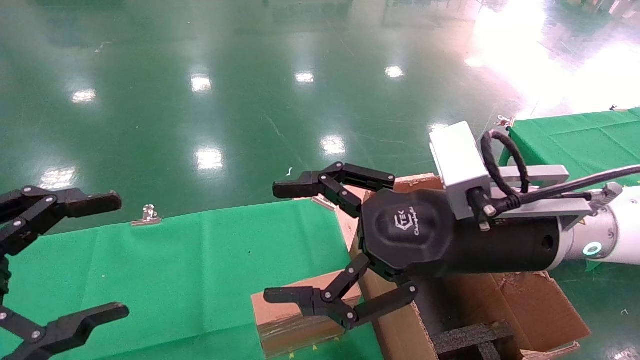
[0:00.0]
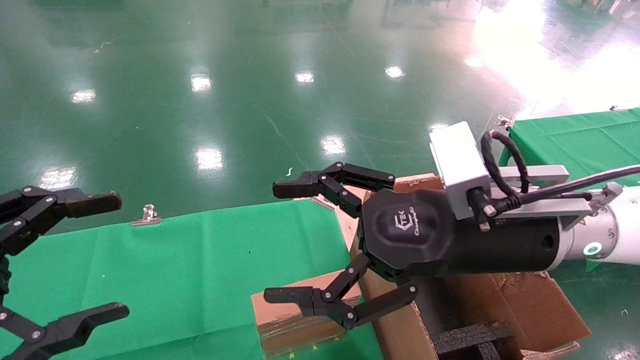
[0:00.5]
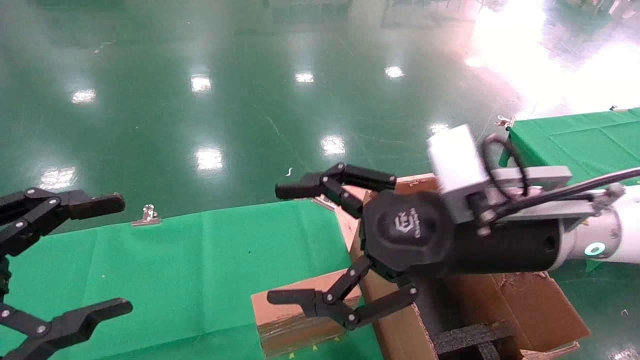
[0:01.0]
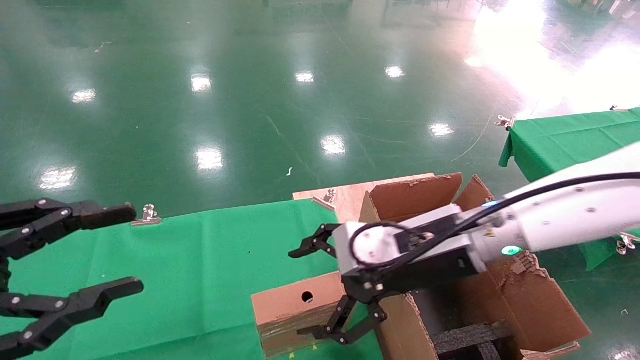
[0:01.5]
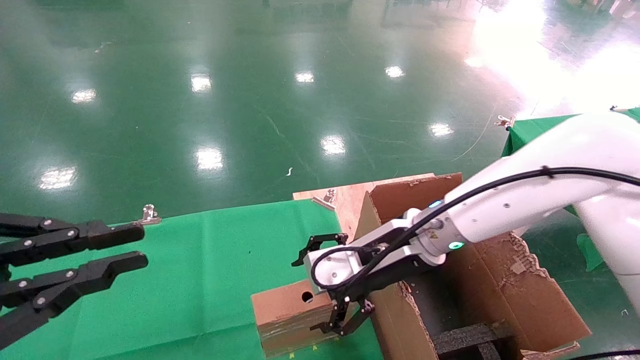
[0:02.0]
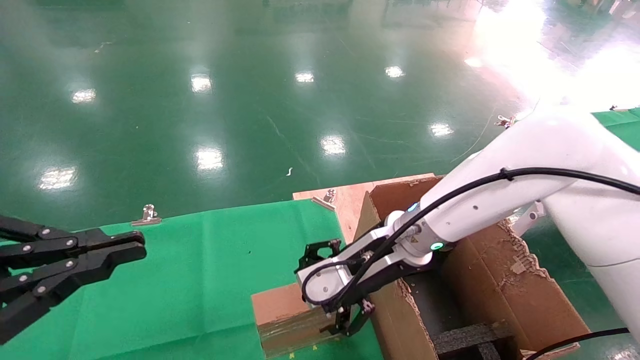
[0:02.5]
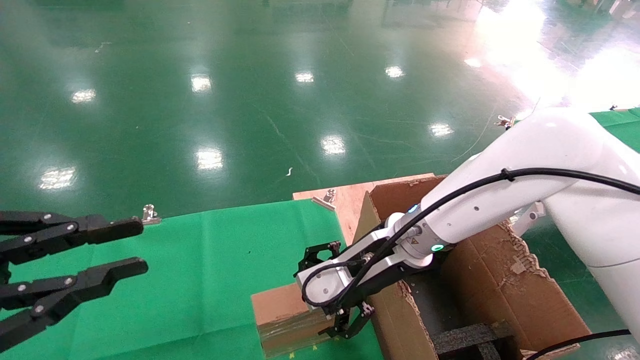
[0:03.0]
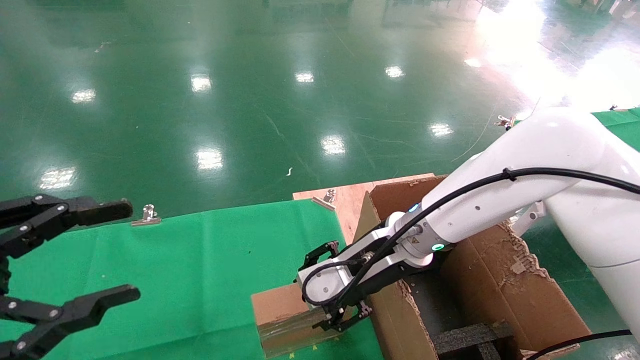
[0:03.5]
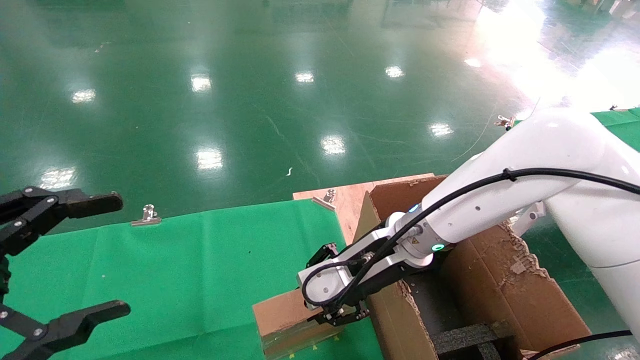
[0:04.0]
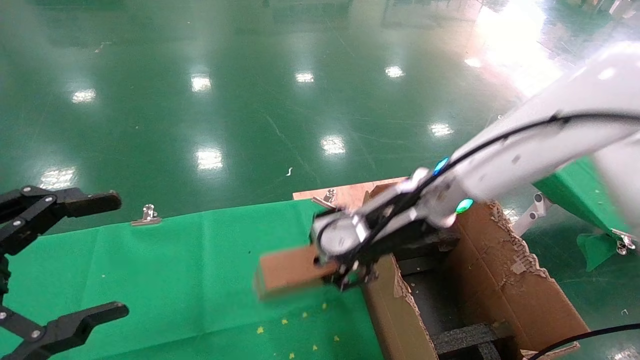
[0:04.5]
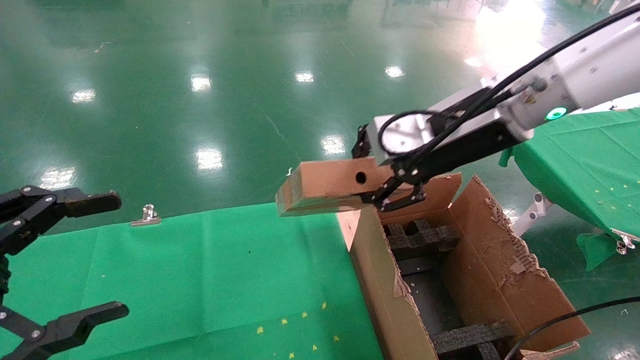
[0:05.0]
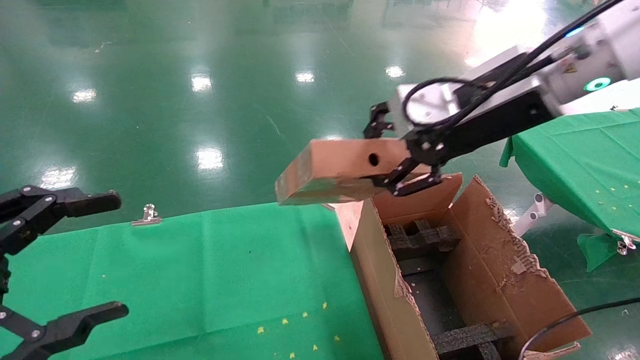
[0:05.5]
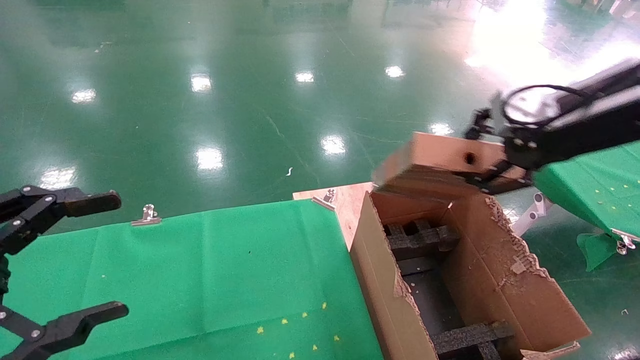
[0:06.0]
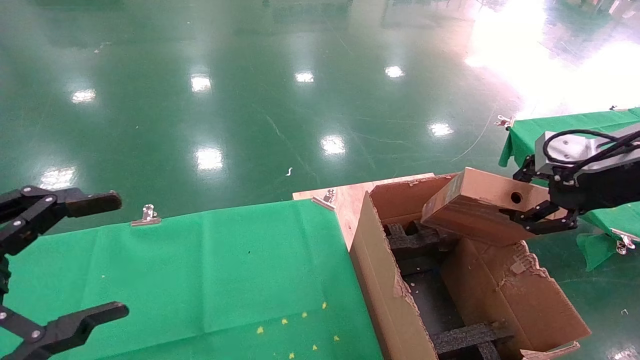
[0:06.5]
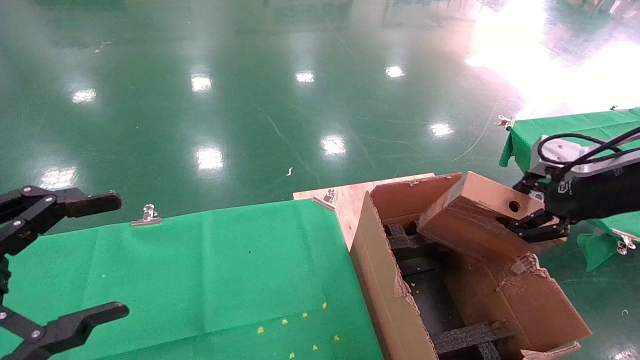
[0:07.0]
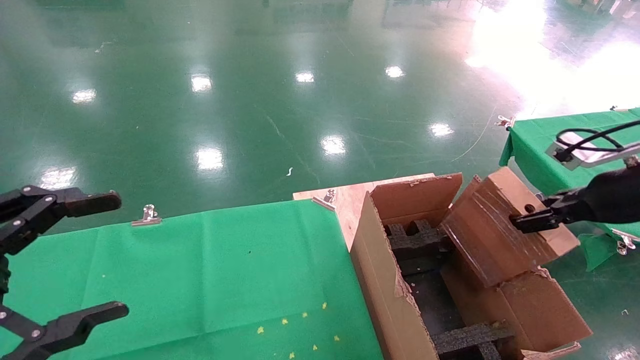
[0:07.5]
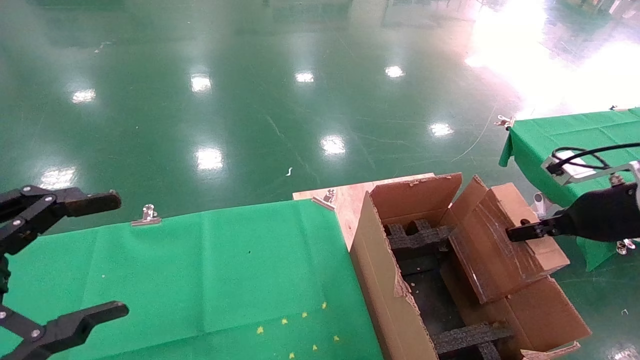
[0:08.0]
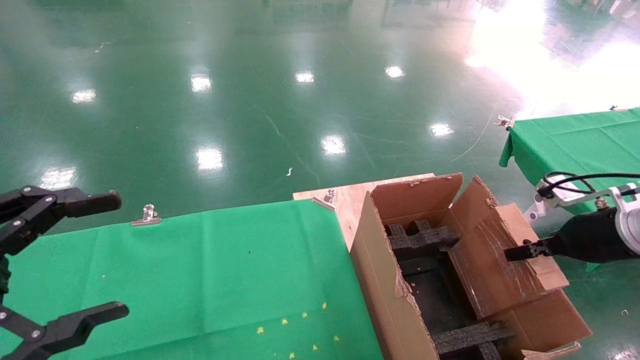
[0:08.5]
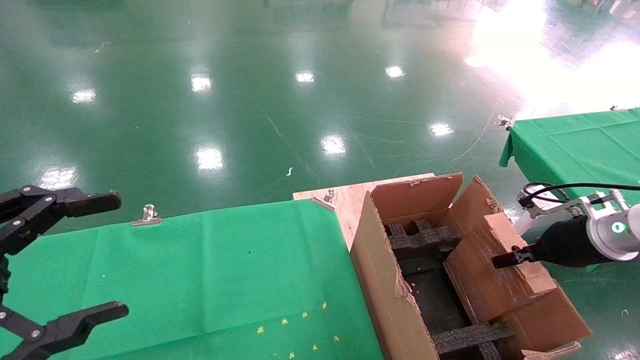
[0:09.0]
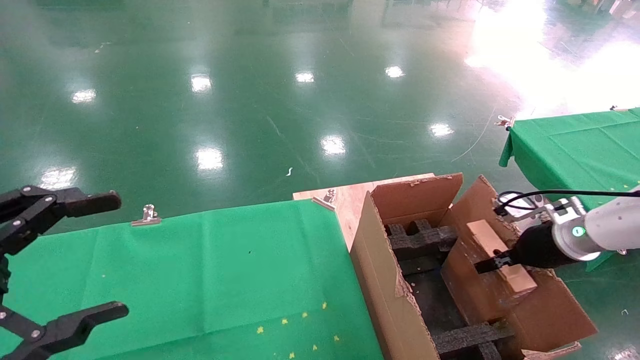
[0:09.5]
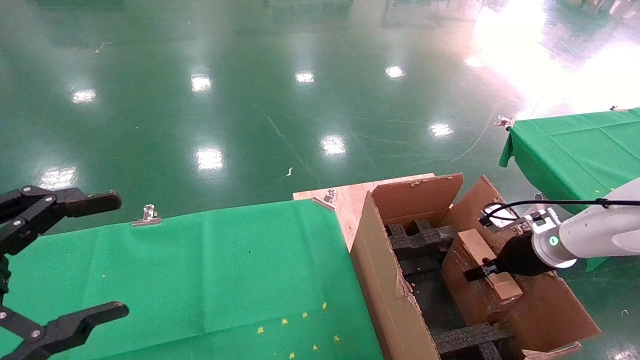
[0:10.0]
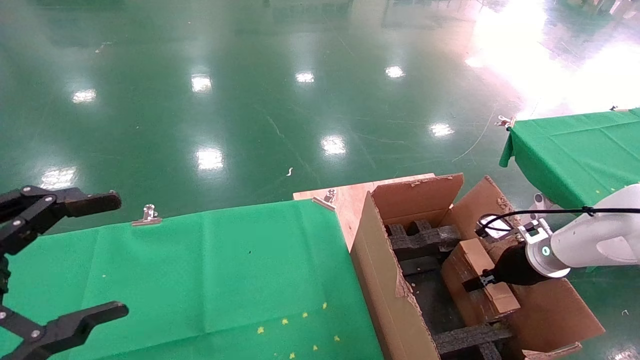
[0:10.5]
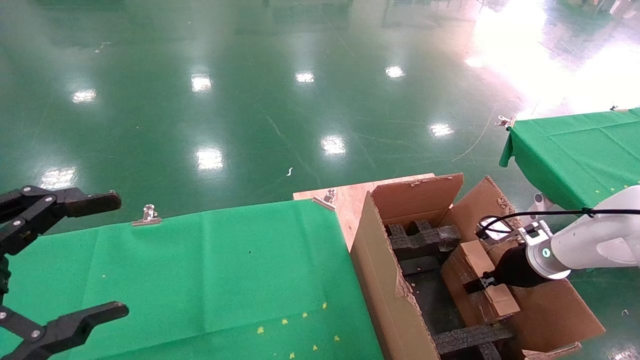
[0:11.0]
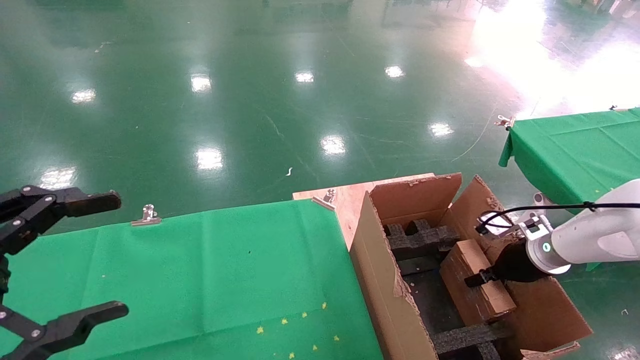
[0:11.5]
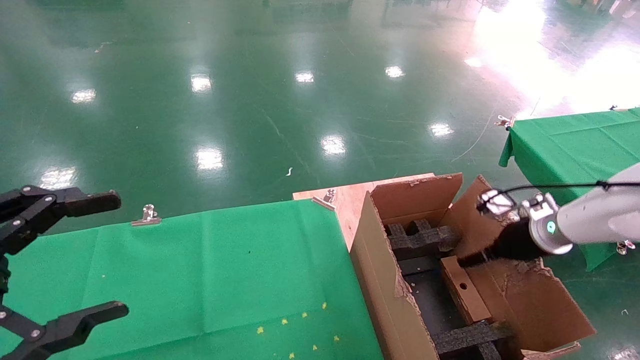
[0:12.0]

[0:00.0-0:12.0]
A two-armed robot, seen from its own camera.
Task of the whole recording: using a robotic arm to pick up a cardboard box and palace it the carton.
Step, 0:01.0 to 0:03.5: Pick up the mouse and the power cord paper box.
0:00.0 to 0:02.0: The left gripper closes its fingers. The right gripper shifts some 10 cm forward and downward.
0:02.0 to 0:04.0: The left gripper opens up. The right gripper closes.
0:04.0 to 0:06.0: The right gripper travels to the right and upward by some 30 cm.
0:06.0 to 0:08.0: The right gripper goes roughly 15 cm downward and to the right.
0:08.0 to 0:10.0: The right gripper shifts roughly 15 cm downward and forward.
0:10.0 to 0:12.0: The right gripper opens.

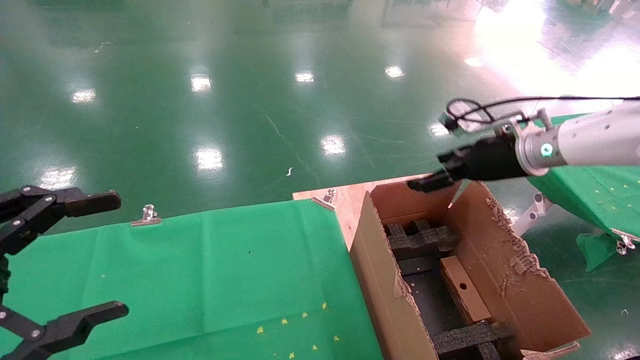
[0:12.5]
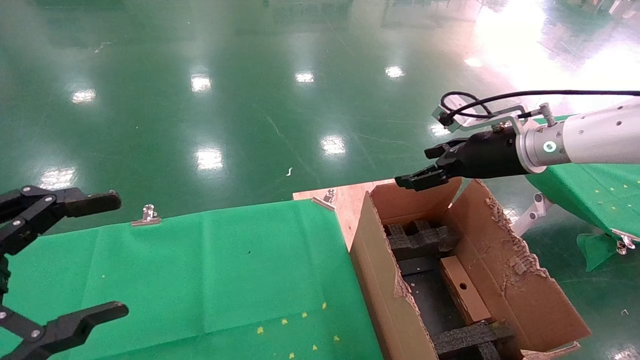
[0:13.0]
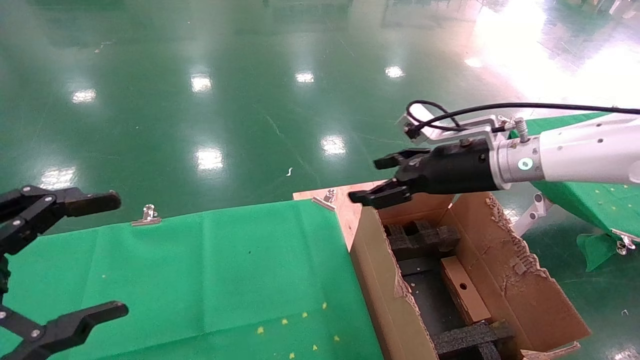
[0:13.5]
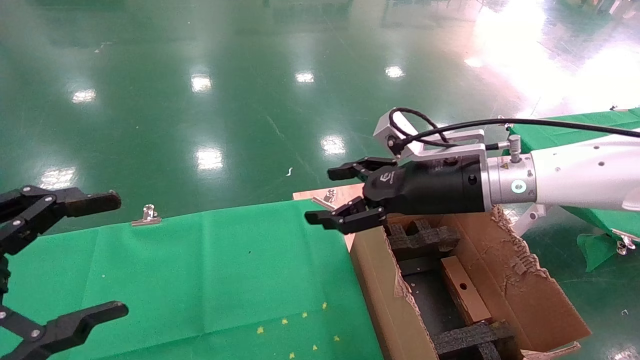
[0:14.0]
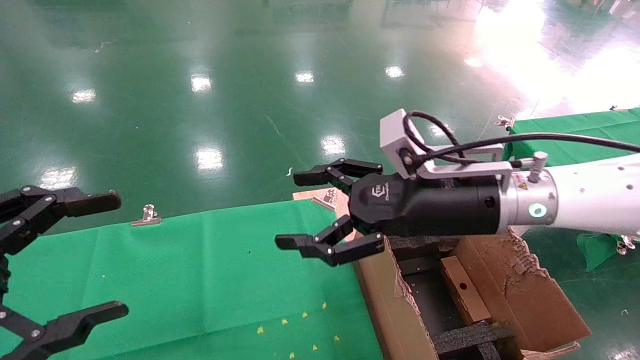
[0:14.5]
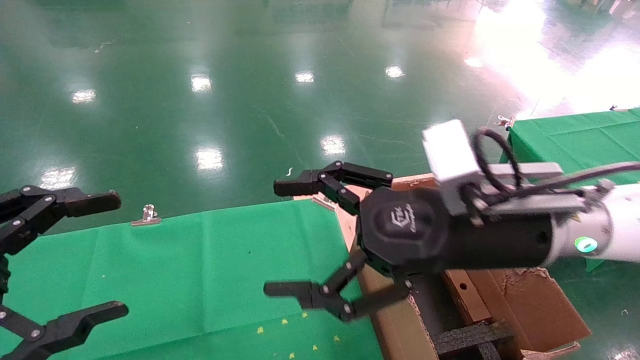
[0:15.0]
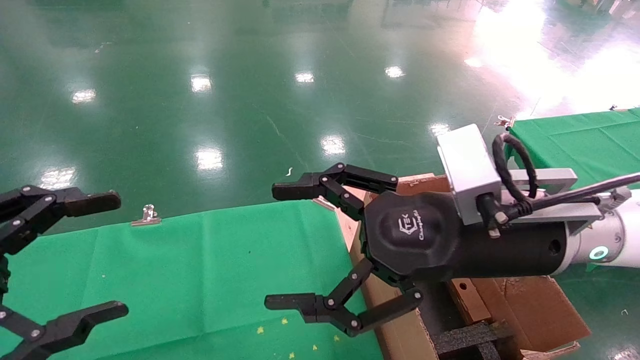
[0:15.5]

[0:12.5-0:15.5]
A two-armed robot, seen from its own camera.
Task of the whole recording: using a robotic arm to pick up a cardboard box and palace it the carton.
0:12.5 to 0:14.0: The right gripper travels to the left and backward by roughly 15 cm.
0:14.0 to 0:15.5: The right gripper heads backward, covering approximately 10 cm.
